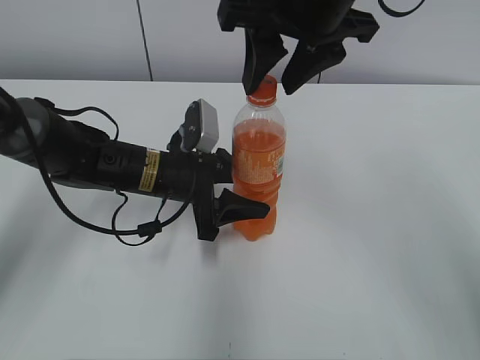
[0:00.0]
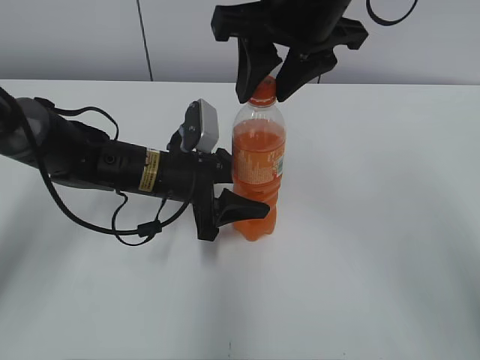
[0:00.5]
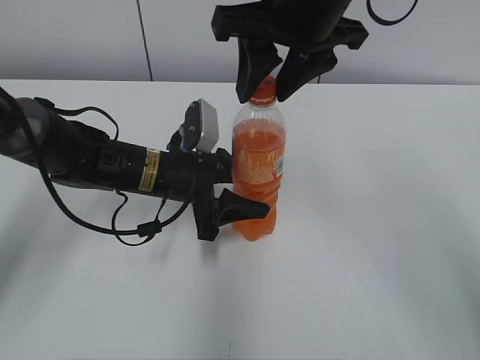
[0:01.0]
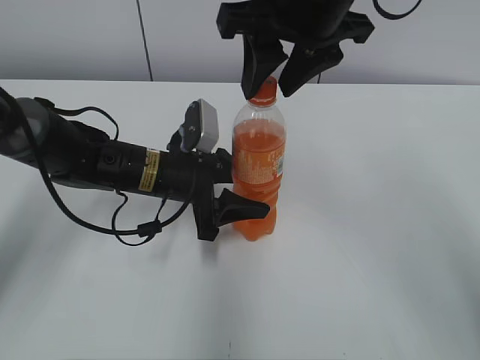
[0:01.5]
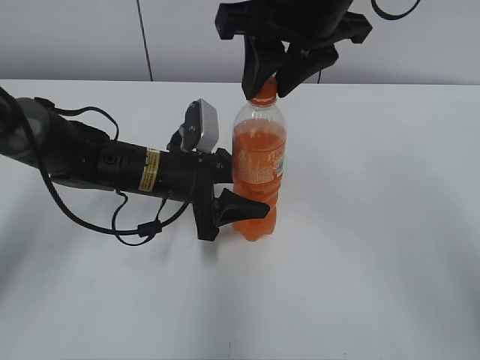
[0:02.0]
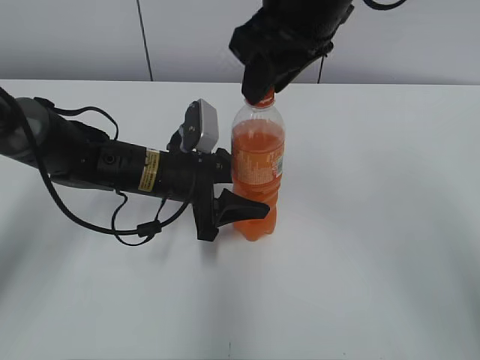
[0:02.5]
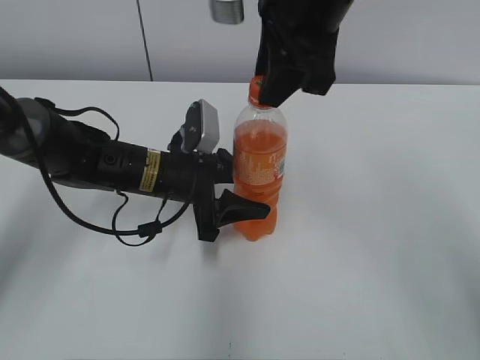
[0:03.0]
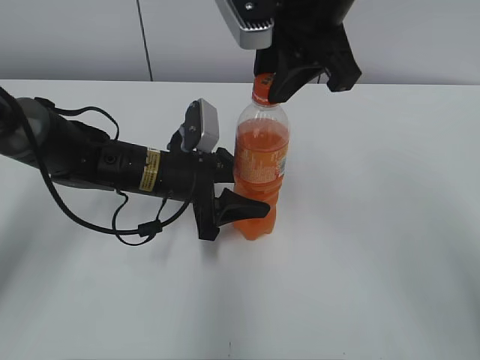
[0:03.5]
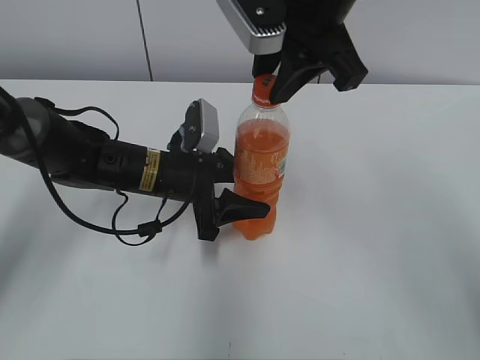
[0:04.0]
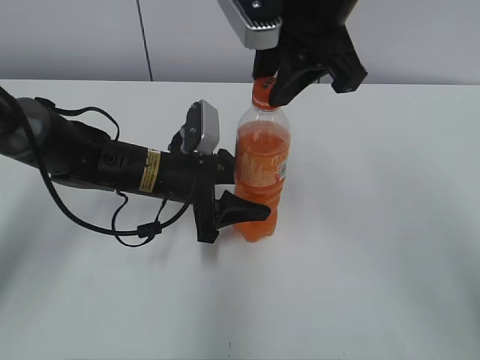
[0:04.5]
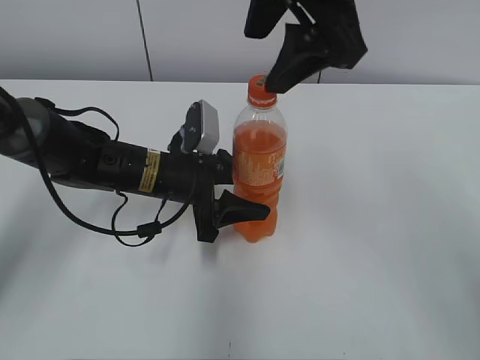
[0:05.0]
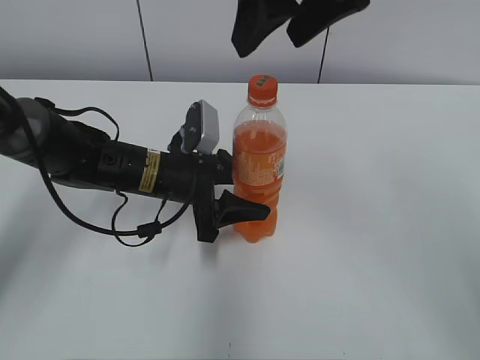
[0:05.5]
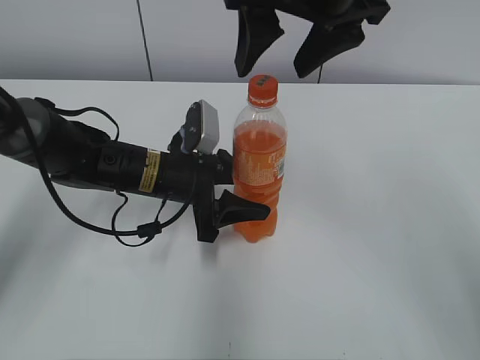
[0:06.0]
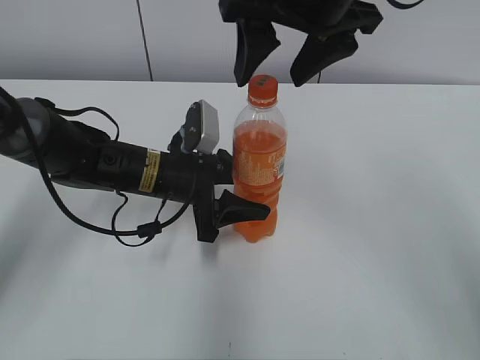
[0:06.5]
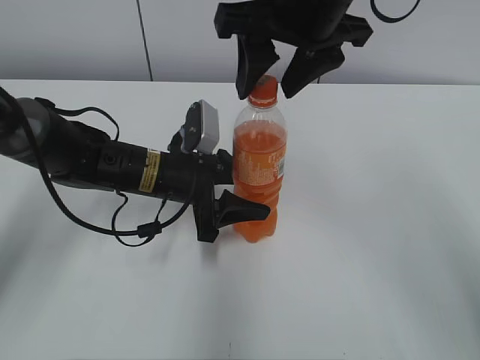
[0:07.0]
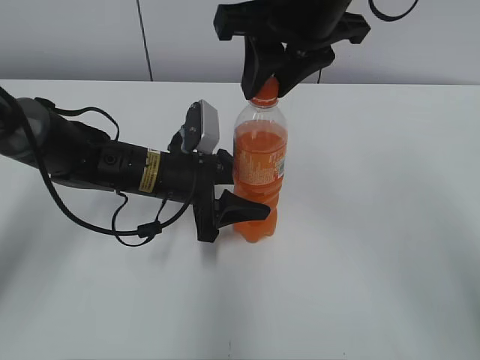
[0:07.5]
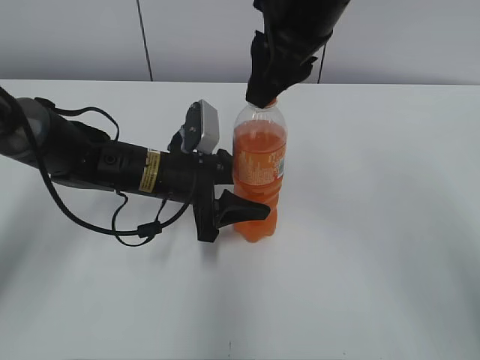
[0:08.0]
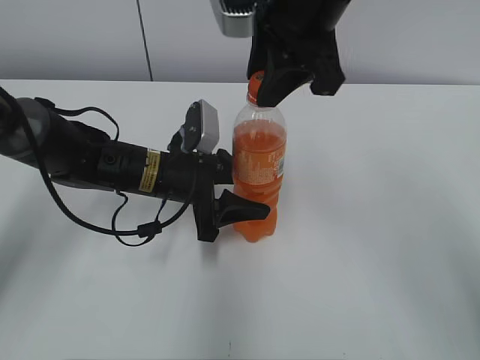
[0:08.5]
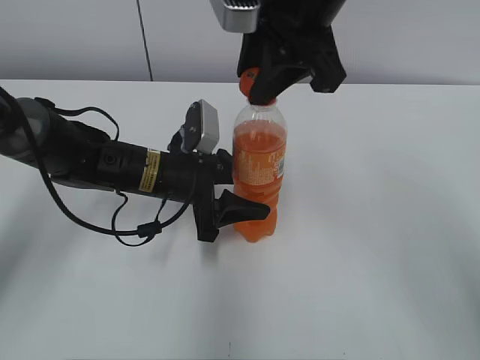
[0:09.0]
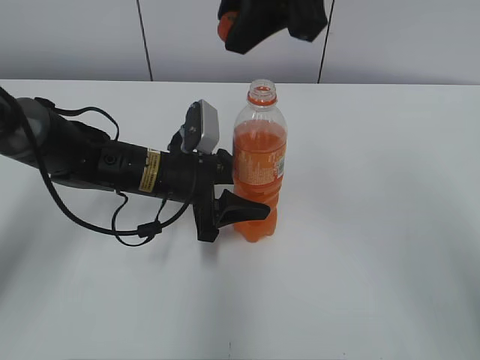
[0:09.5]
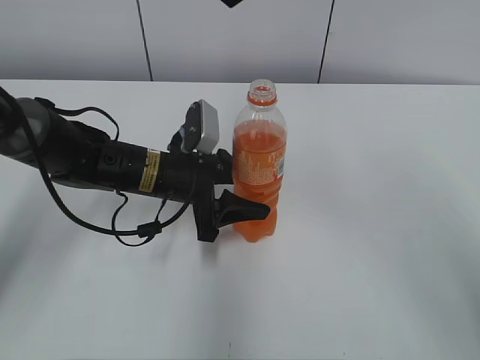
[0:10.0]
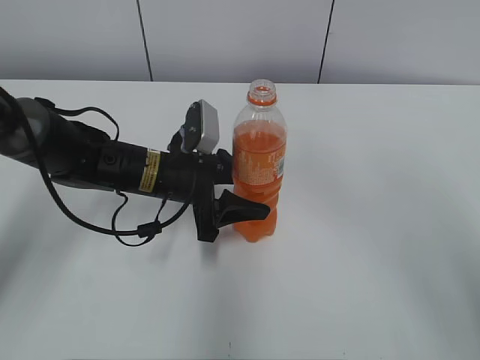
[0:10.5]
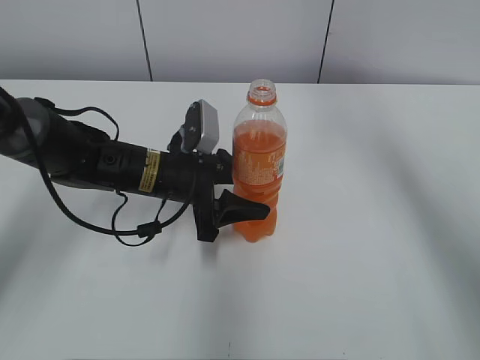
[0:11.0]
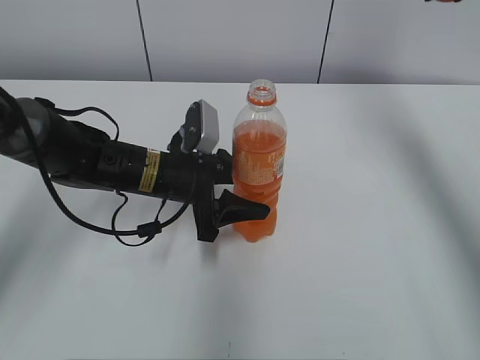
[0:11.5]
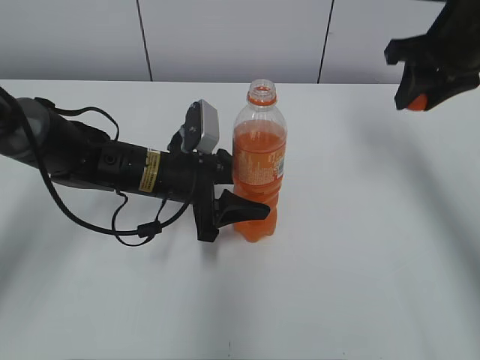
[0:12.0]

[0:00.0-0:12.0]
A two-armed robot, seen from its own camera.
0:00.0 to 0:02.0: The two grippers keep their place.
0:04.0 to 0:06.0: The right gripper opens its fingers.
0:06.0 to 0:08.0: The right gripper closes its fingers.
0:08.0 to 0:10.0: The right gripper moves upward, roughly 10 cm.
0:10.0 to 0:12.0: The right gripper moves to the right and downward, approximately 25 cm.

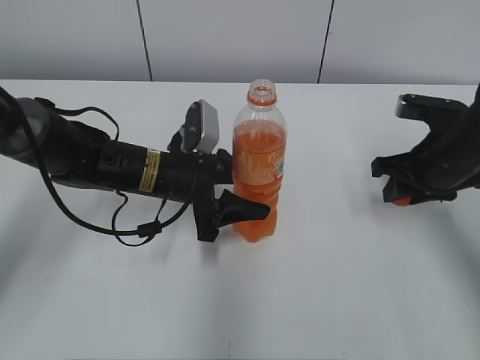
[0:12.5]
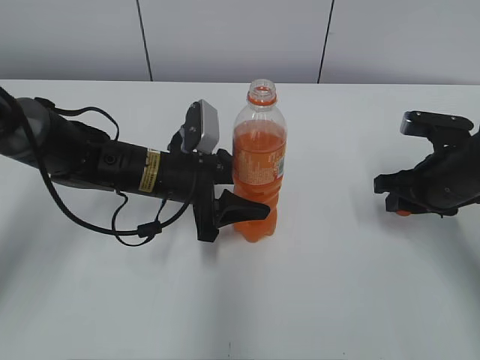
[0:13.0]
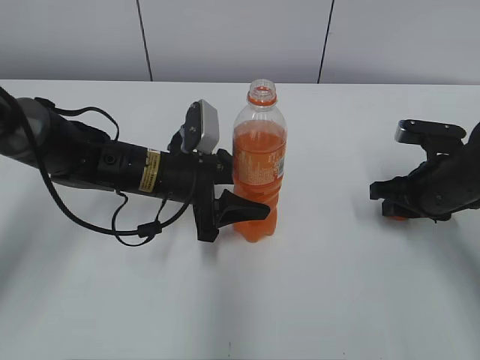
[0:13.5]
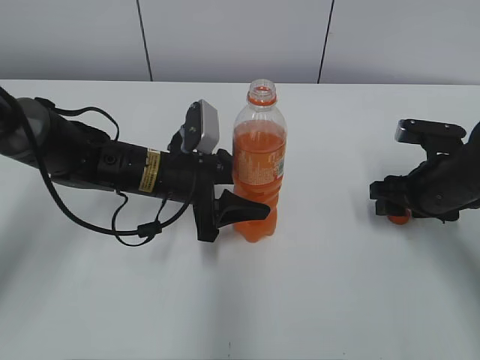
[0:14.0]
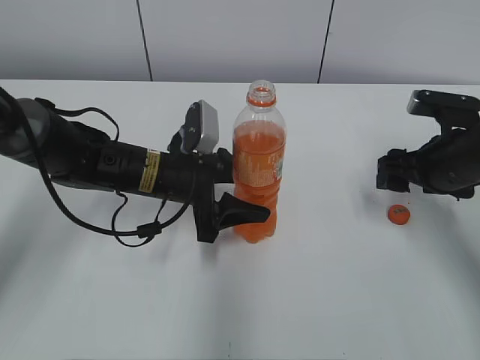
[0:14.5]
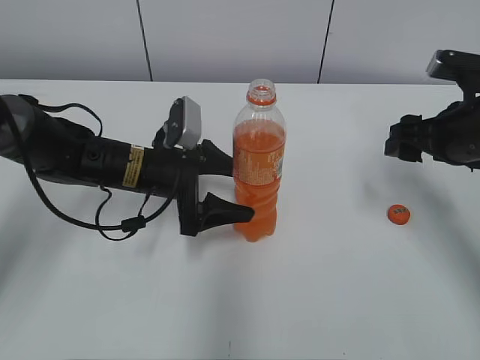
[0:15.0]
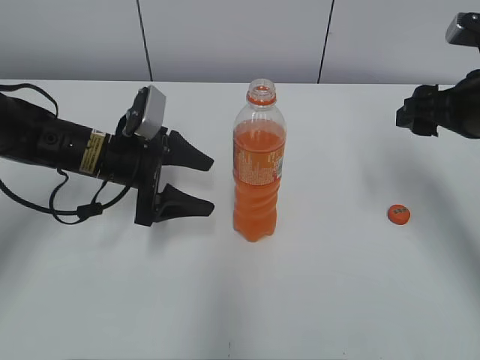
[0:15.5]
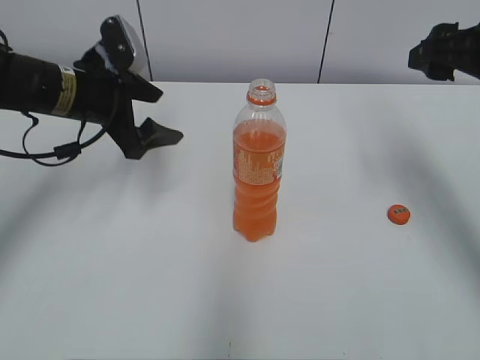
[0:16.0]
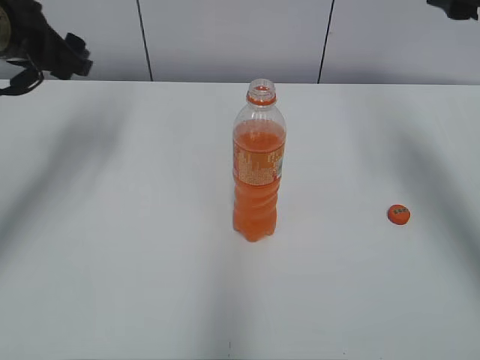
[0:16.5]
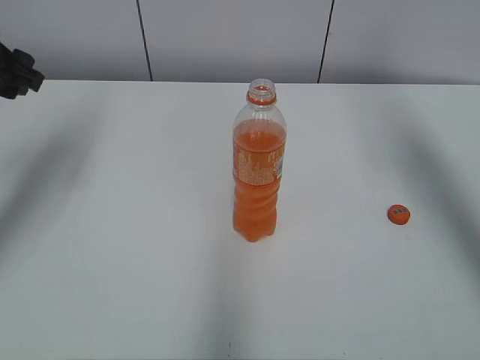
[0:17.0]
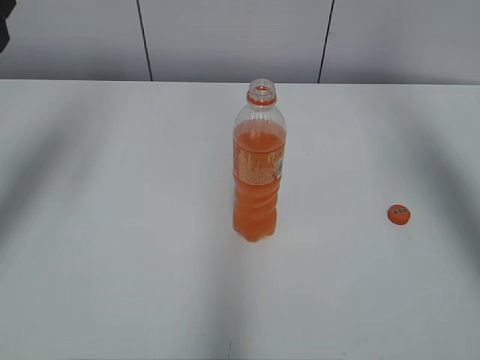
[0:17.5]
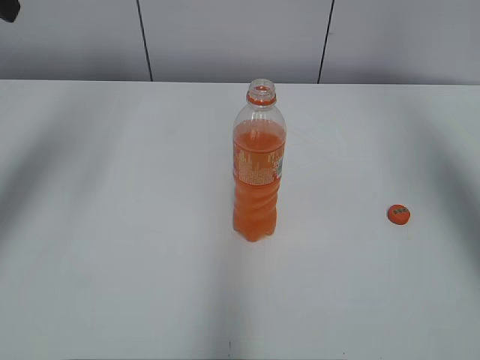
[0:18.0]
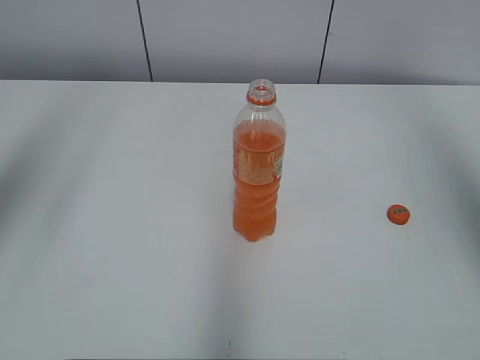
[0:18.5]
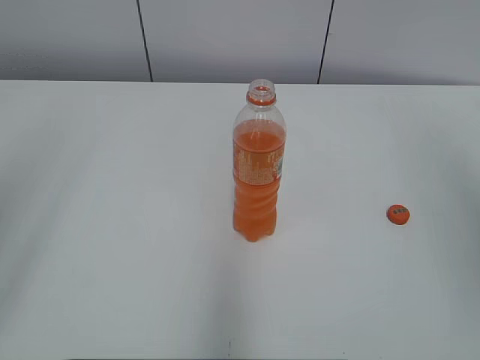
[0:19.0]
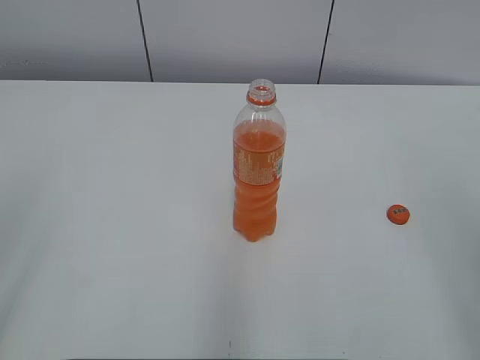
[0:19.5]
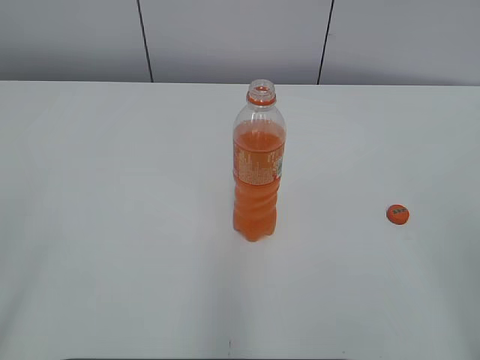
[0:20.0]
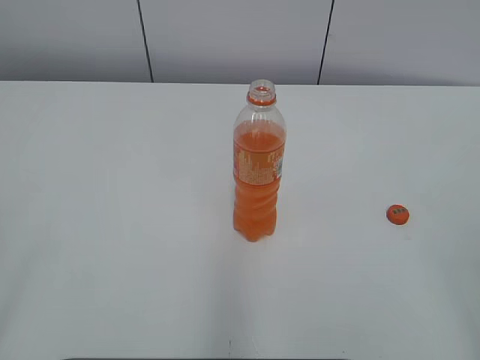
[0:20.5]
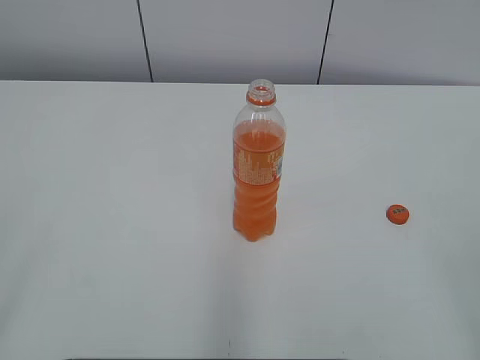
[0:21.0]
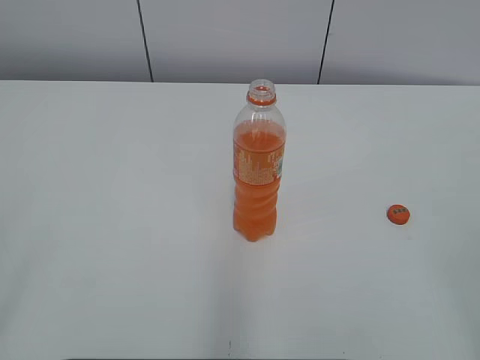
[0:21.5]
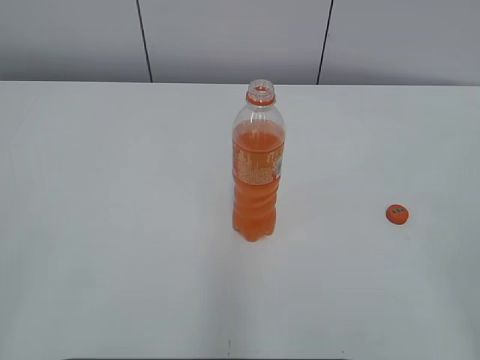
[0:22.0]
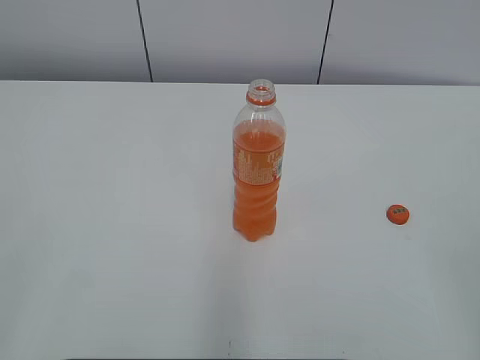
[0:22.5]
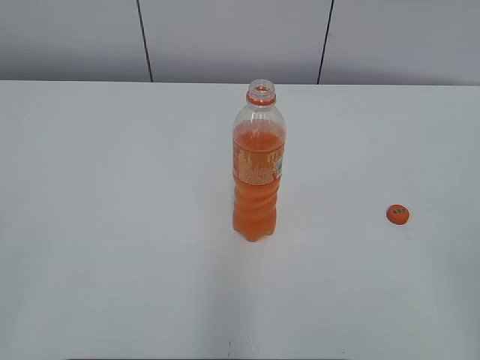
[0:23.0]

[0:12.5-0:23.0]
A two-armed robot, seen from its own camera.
0:12.5 to 0:14.5: The right gripper opens up.
0:14.5 to 0:16.5: The right gripper goes roughly 20 cm upward; the left gripper heads upward and to the left, covering approximately 25 cm.
0:16.5 to 0:19.0: Both grippers move backward and upward, approximately 25 cm.
